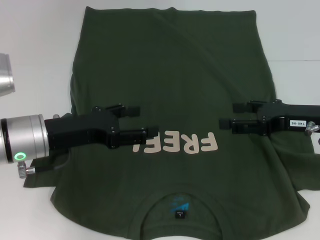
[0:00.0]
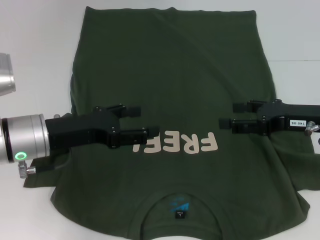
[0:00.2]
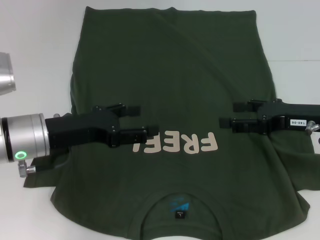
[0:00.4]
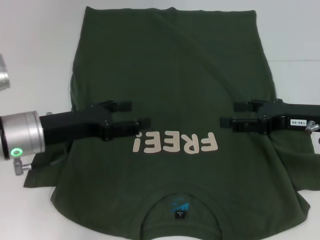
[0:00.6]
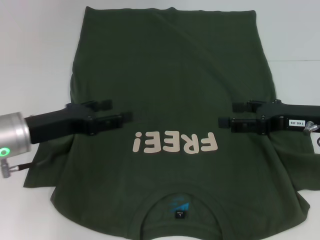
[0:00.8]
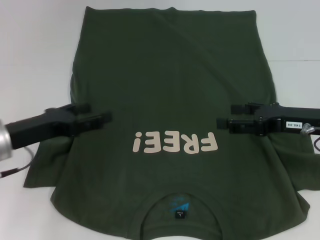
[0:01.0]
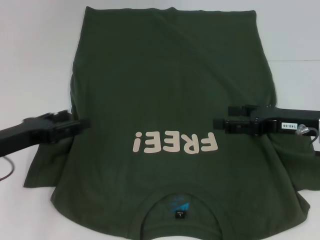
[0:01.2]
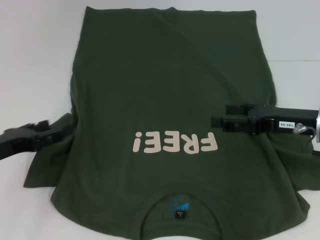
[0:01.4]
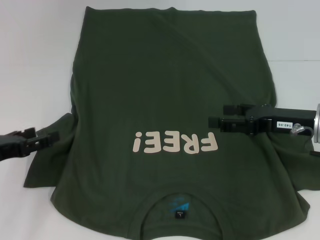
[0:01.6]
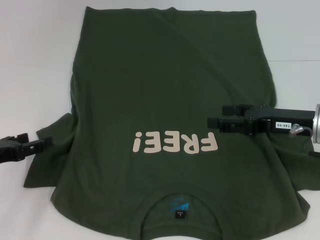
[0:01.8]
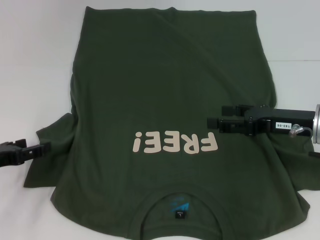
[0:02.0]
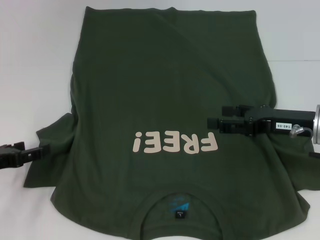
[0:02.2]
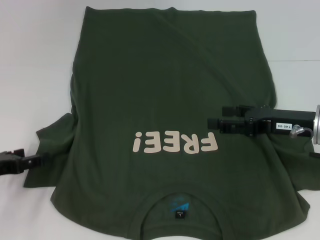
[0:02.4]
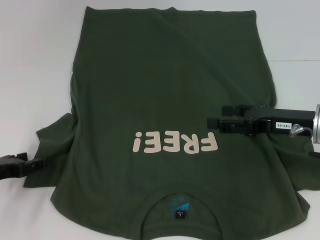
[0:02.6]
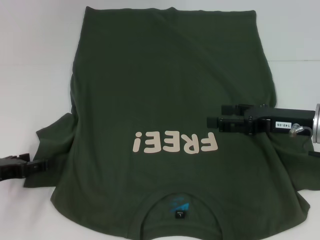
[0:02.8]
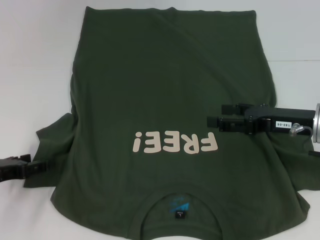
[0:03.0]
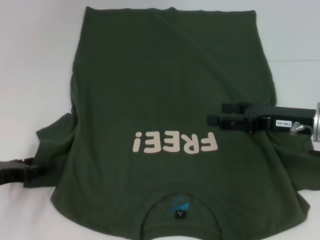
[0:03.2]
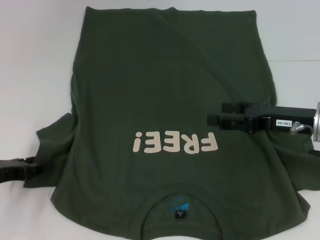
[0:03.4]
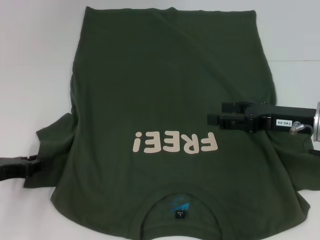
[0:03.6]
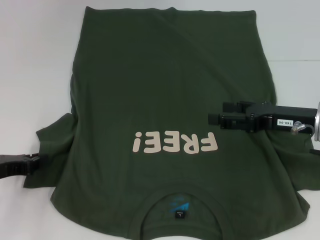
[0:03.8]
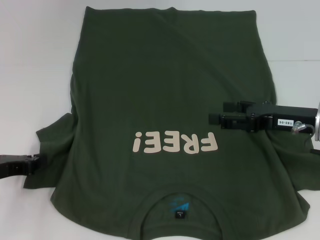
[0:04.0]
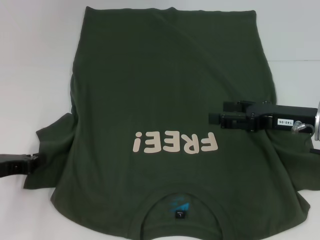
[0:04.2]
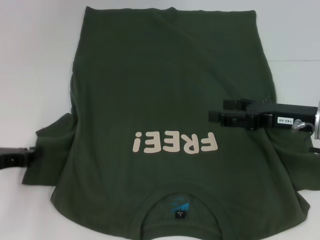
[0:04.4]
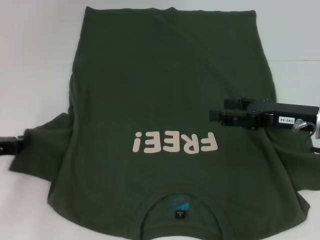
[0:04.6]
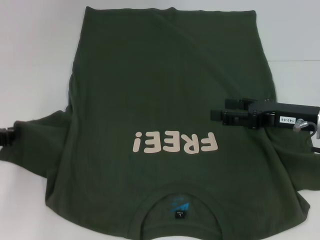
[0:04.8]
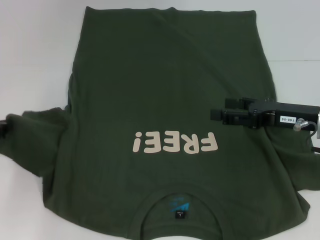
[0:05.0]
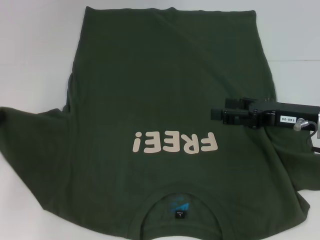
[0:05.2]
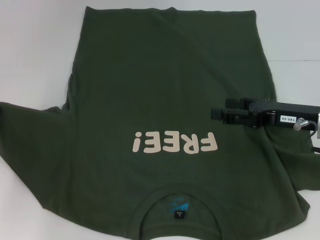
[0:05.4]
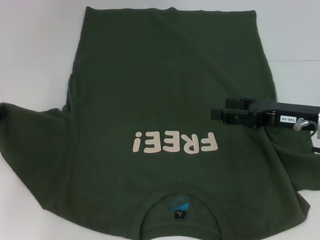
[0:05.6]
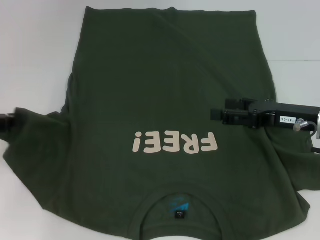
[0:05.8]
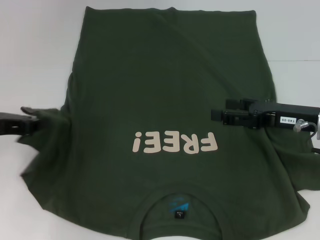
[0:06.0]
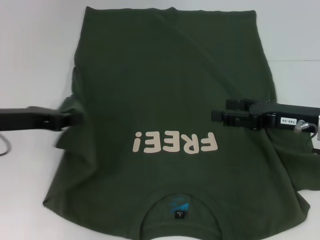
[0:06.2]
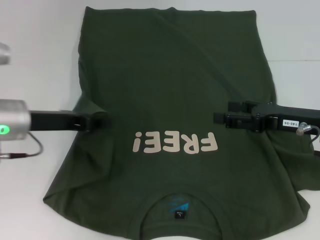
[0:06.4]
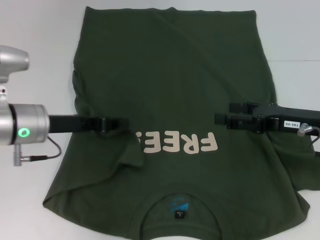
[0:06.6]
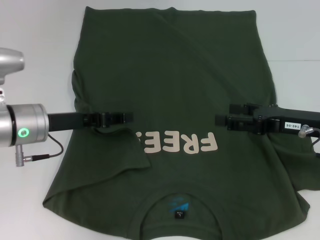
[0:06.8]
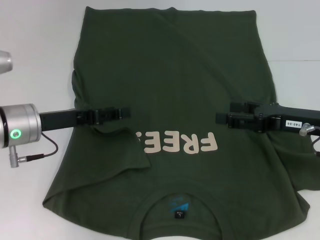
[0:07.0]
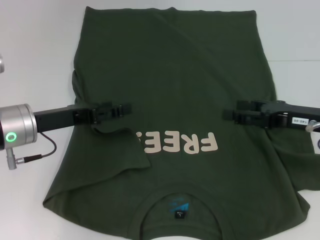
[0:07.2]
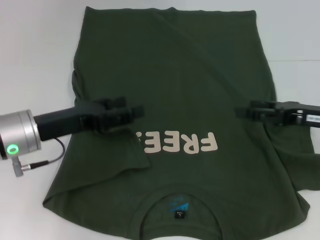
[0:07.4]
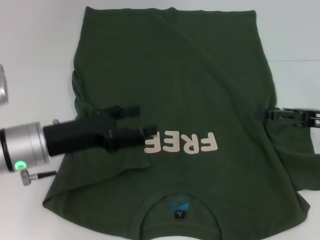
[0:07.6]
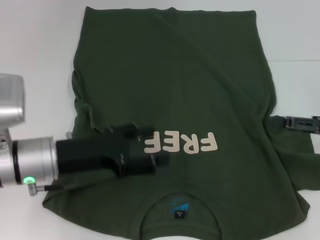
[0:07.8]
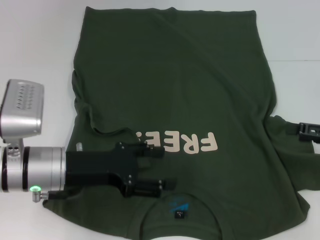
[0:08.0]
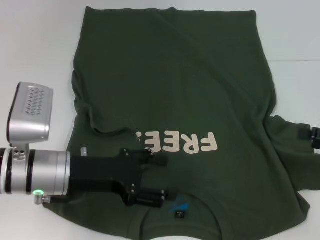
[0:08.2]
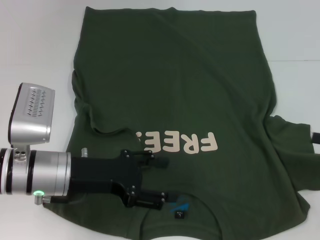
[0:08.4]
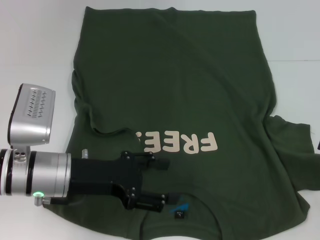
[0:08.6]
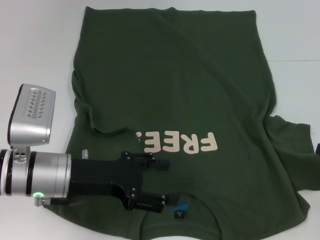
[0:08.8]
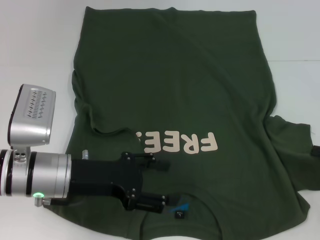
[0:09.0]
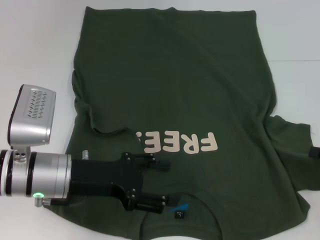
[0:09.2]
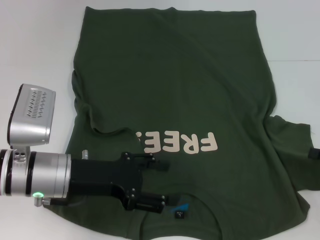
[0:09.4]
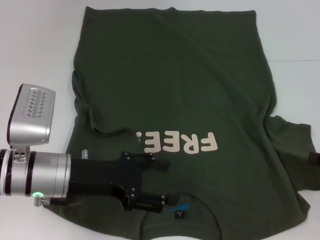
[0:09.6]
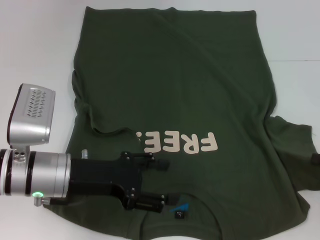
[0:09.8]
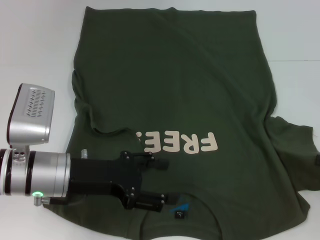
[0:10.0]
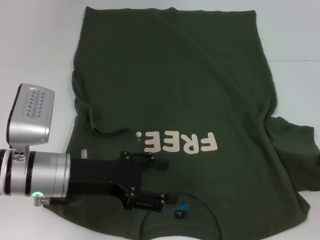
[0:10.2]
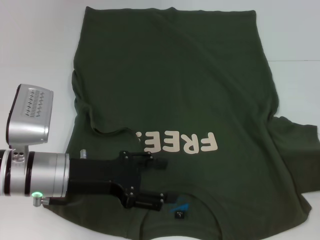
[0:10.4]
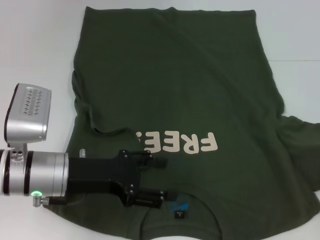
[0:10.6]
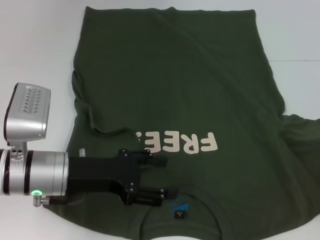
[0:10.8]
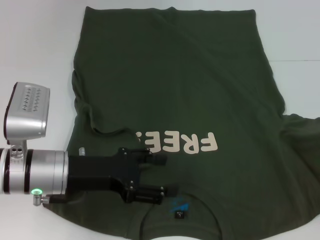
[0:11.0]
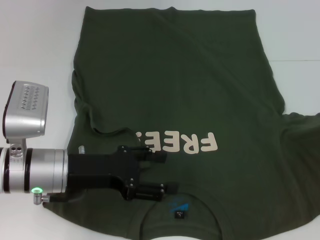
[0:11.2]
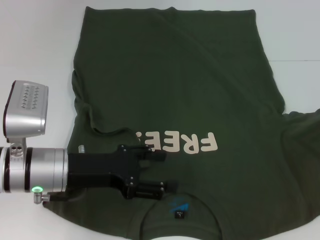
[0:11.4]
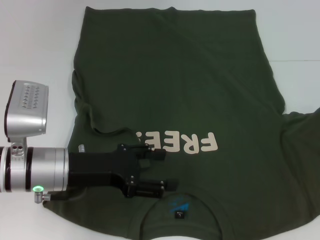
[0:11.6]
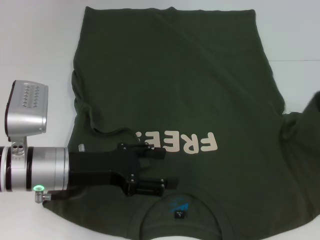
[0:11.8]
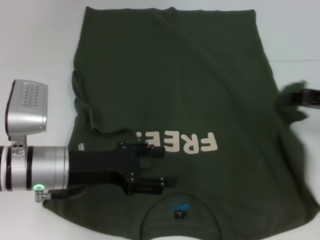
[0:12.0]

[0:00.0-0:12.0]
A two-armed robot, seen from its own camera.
Step, 0:00.0 to 0:07.2: Fold the clothes with your left hand.
0:00.0 to 0:01.6: The left gripper shifts approximately 10 cm to the left.
0:01.6 to 0:03.0: The grippers make only small movements.
0:03.0 to 0:04.4: The left gripper closes.
0:04.4 to 0:06.0: The left gripper moves upward, roughly 5 cm.
0:06.0 to 0:07.6: The right gripper goes approximately 5 cm to the right; the left gripper travels to the right by roughly 10 cm, and opens its fingers.
0:07.6 to 0:09.0: The right gripper is displaced to the right and backward by about 10 cm.
0:09.0 to 0:10.4: The right gripper closes.
0:10.4 to 0:12.0: The right gripper travels forward, to the left and upward by some 15 cm.

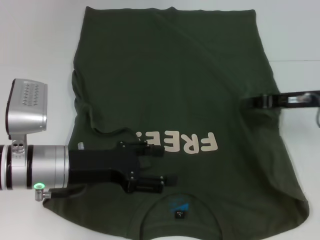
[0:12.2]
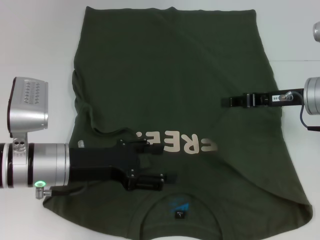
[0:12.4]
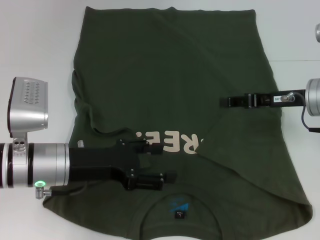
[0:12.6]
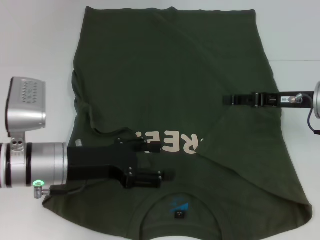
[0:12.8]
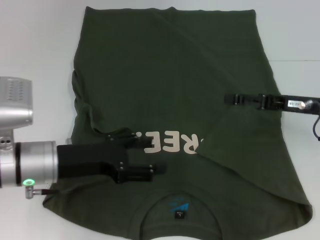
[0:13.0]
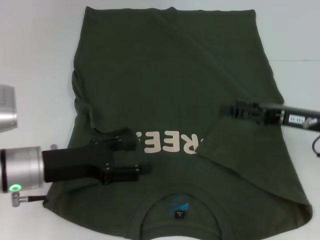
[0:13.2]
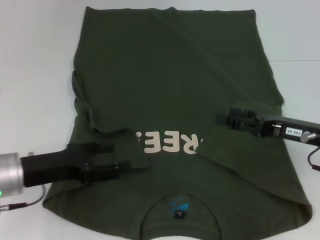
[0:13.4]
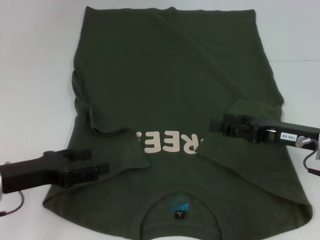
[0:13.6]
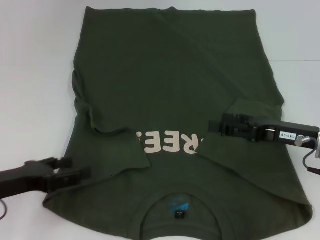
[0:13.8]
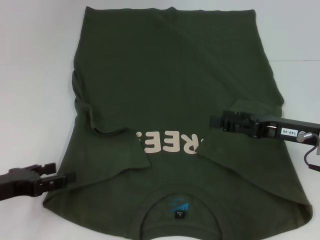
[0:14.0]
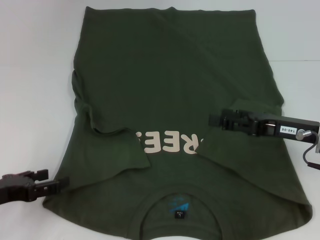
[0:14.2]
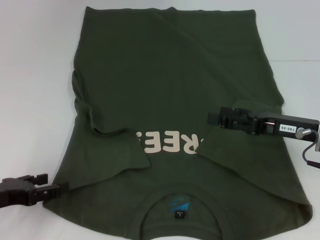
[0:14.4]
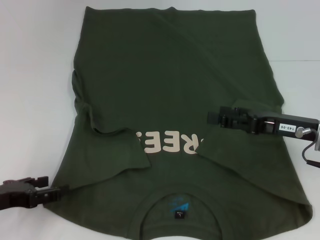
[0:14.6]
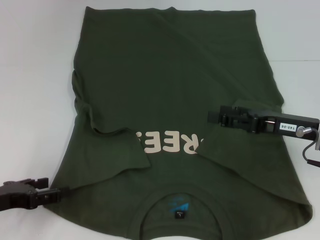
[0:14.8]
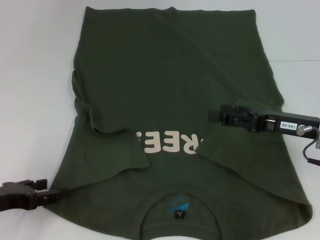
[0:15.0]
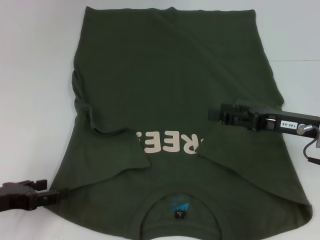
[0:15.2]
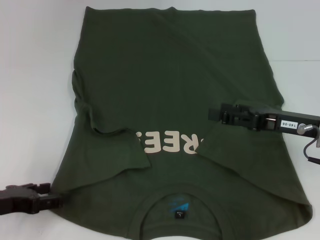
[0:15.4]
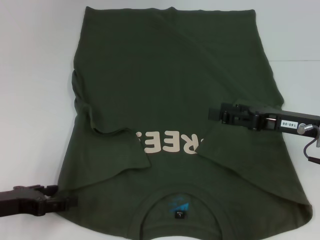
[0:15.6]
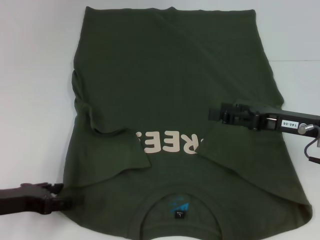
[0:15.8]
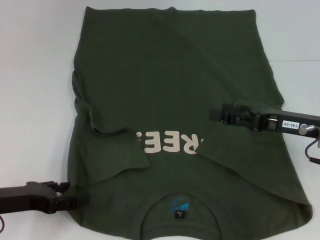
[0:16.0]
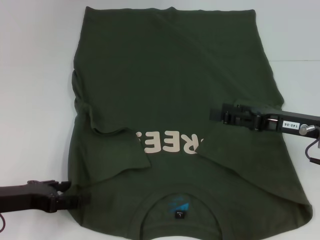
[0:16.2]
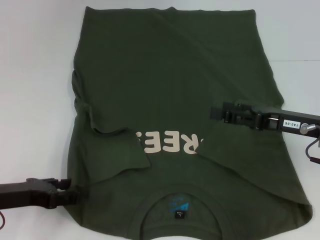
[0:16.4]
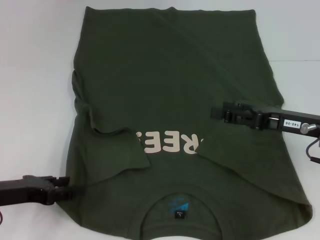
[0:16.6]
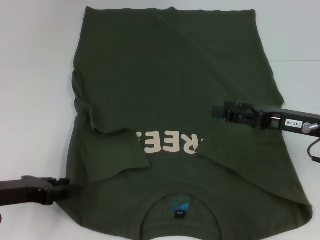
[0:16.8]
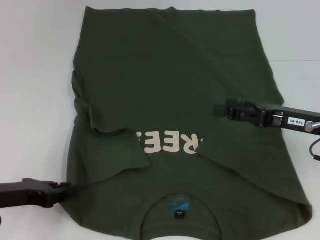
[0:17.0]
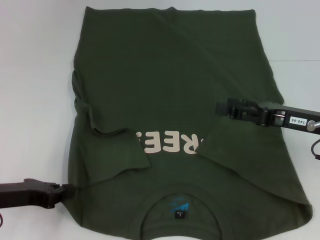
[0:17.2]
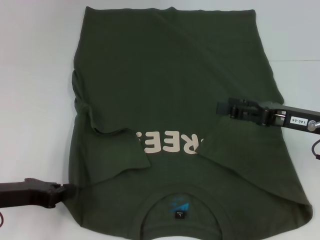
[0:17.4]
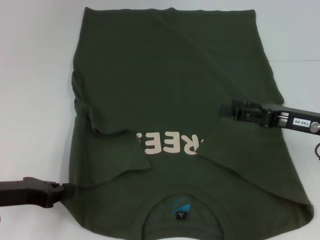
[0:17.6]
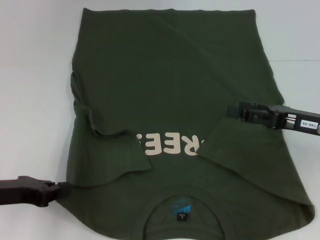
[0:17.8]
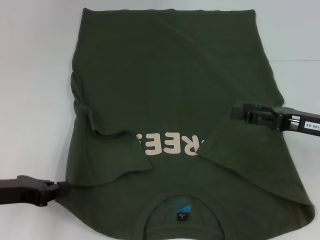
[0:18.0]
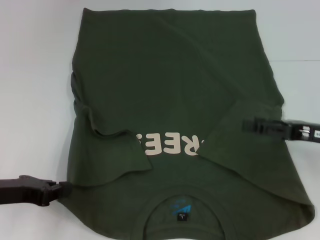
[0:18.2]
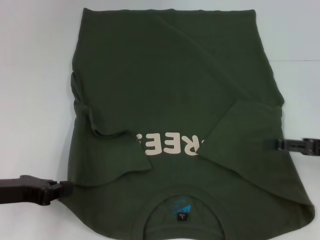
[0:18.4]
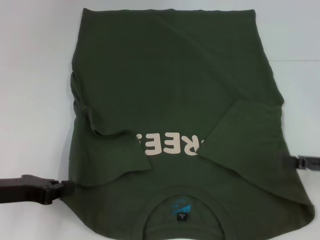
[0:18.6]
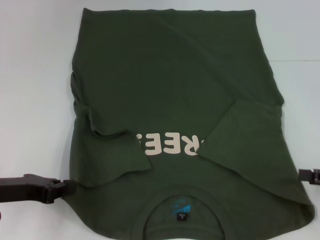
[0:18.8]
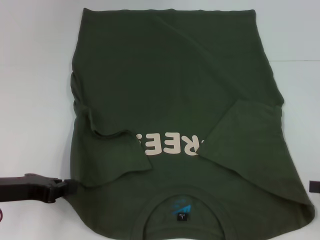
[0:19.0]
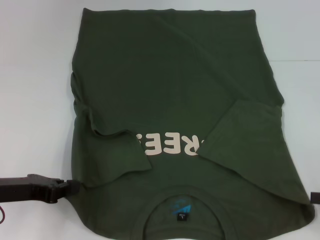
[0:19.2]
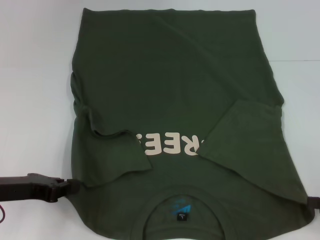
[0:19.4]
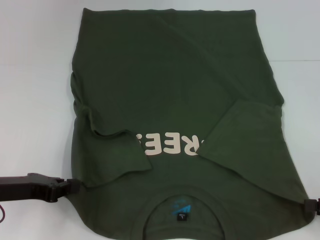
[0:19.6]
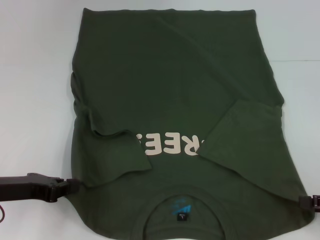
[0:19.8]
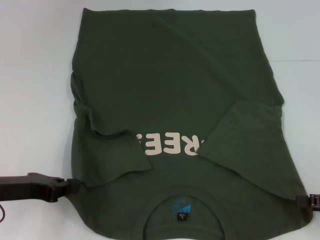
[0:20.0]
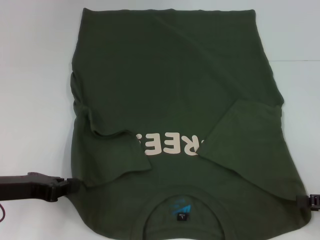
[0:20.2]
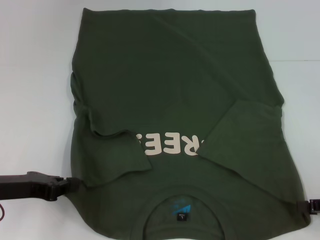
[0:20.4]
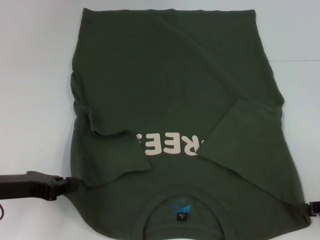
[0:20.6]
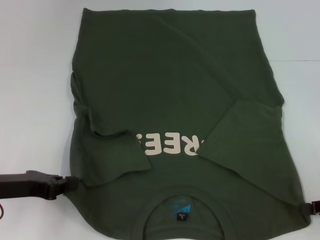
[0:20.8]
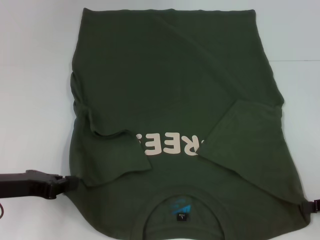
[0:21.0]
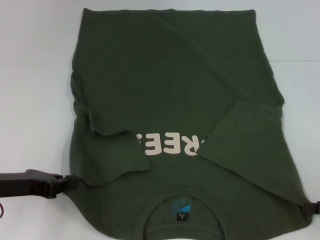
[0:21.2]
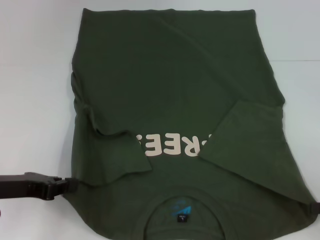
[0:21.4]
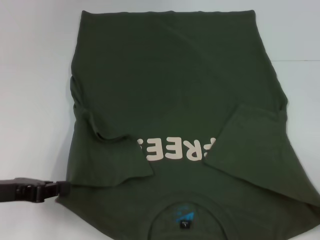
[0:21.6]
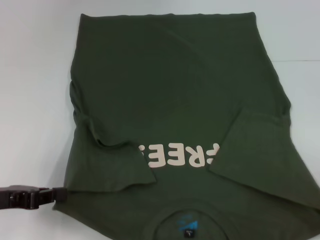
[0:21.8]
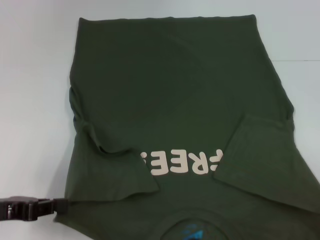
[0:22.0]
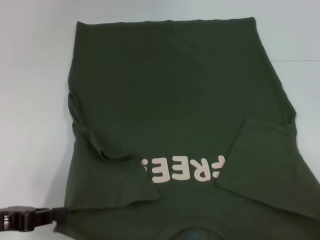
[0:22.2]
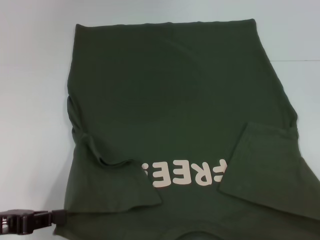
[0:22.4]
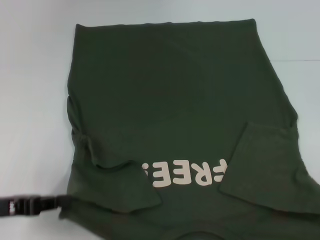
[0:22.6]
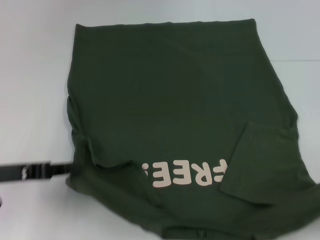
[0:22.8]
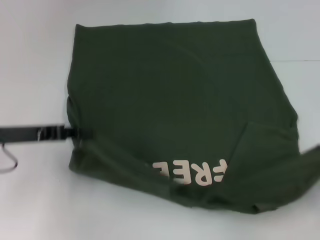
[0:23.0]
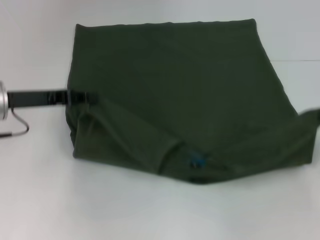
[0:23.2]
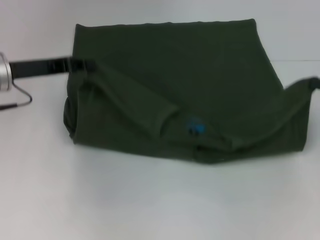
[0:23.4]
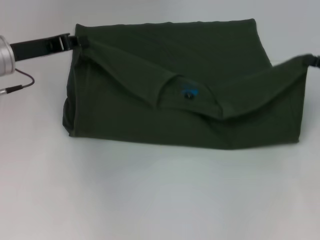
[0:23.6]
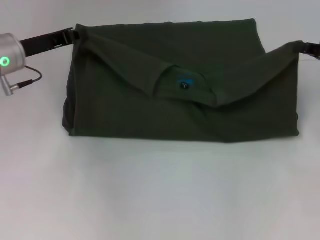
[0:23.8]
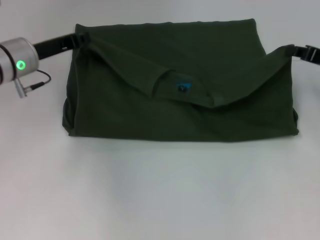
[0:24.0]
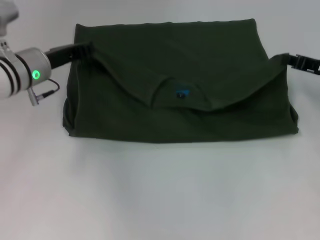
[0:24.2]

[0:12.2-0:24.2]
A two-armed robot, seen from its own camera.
Step, 0:13.0 to 0:18.0: Grab the bottom left corner with your left hand.
Step, 0:18.2 to 0:21.4: Grab the bottom right corner with your right hand.
0:12.2 to 0:13.8: The left gripper travels to the left by roughly 10 cm; the right gripper goes some 5 cm backward, and opens its fingers.
0:13.8 to 0:16.6: The grippers stay close to where they were, moving slightly.
0:16.6 to 0:18.2: The left gripper closes up.
0:18.2 to 0:19.8: The right gripper travels backward and to the right by about 10 cm.
0:21.2 to 0:22.6: The right gripper is displaced backward by some 10 cm.
0:22.6 to 0:24.2: The left gripper moves forward and to the right, approximately 20 cm, while the right gripper goes roughly 25 cm forward and to the left.
